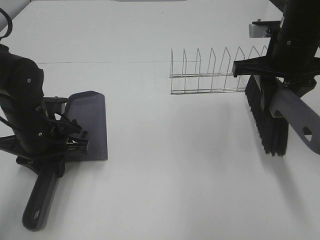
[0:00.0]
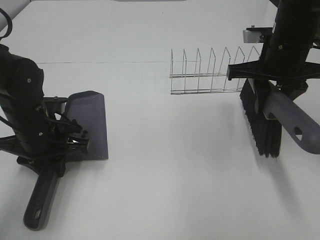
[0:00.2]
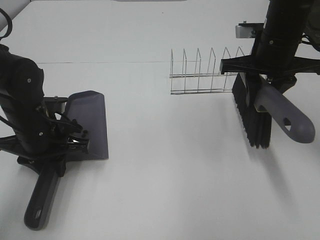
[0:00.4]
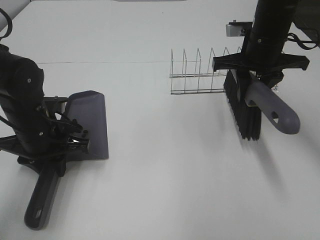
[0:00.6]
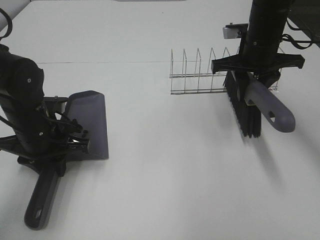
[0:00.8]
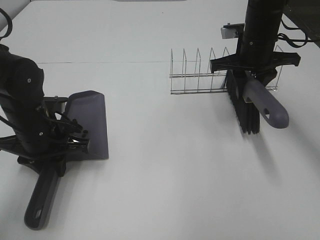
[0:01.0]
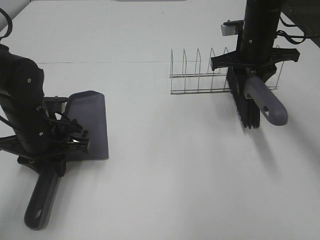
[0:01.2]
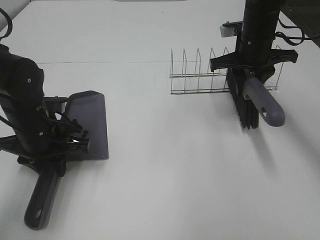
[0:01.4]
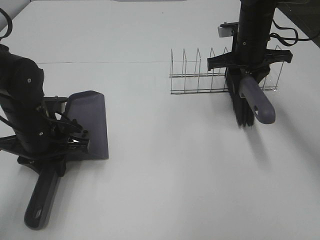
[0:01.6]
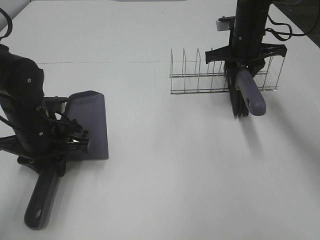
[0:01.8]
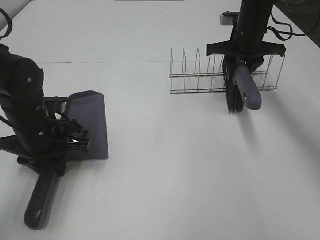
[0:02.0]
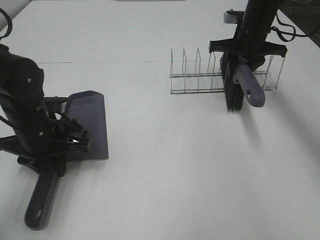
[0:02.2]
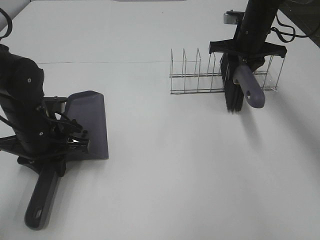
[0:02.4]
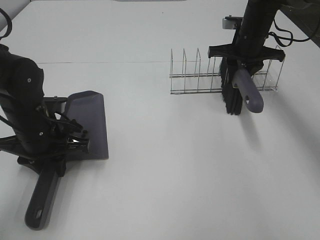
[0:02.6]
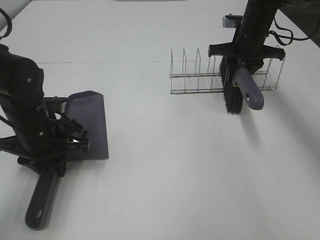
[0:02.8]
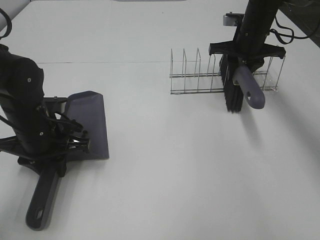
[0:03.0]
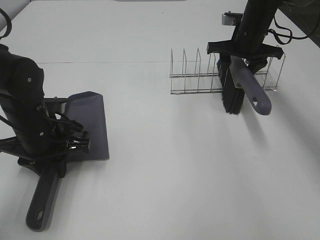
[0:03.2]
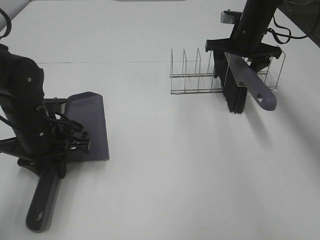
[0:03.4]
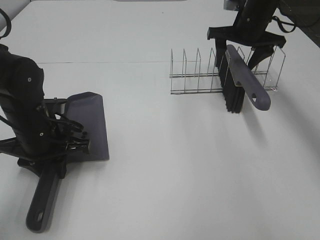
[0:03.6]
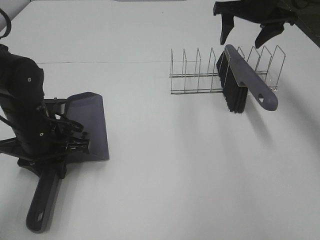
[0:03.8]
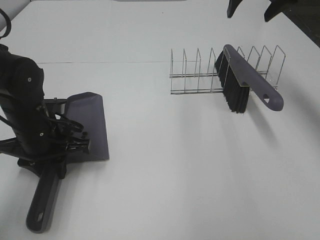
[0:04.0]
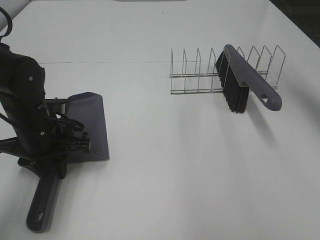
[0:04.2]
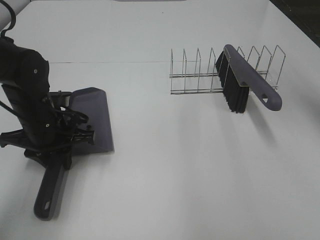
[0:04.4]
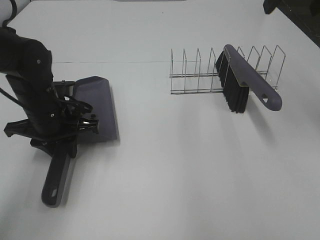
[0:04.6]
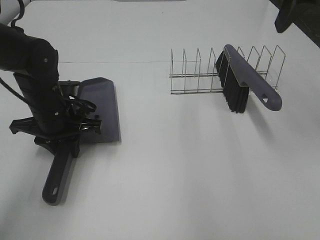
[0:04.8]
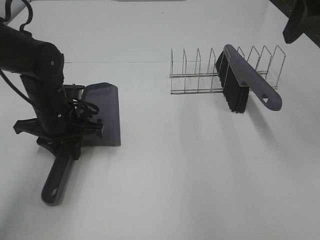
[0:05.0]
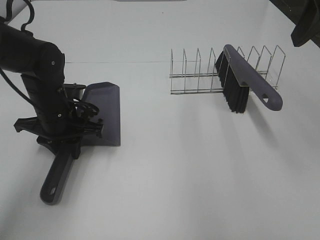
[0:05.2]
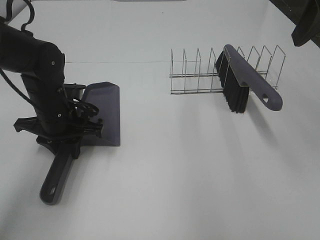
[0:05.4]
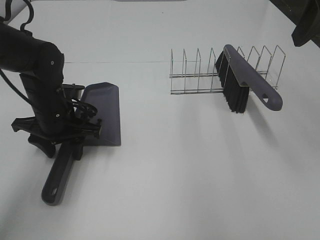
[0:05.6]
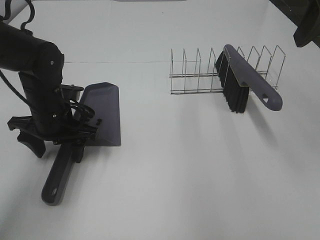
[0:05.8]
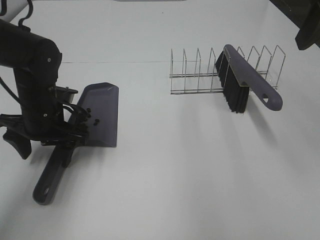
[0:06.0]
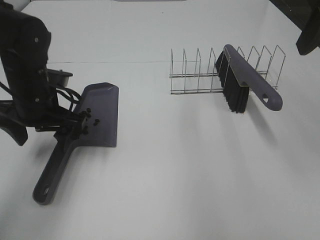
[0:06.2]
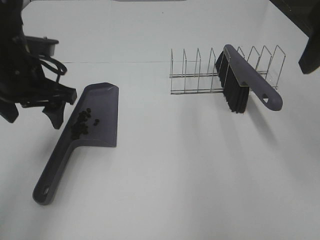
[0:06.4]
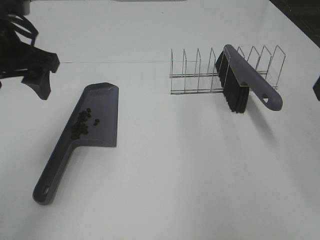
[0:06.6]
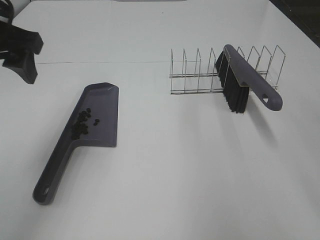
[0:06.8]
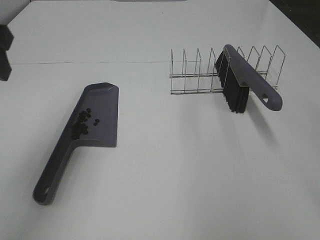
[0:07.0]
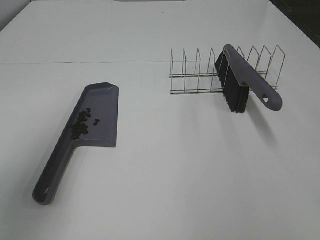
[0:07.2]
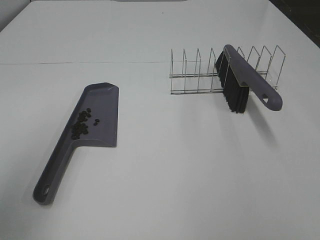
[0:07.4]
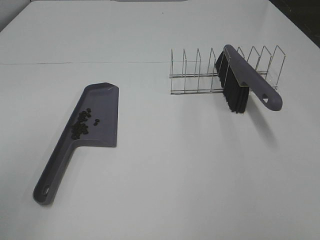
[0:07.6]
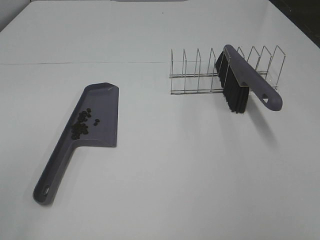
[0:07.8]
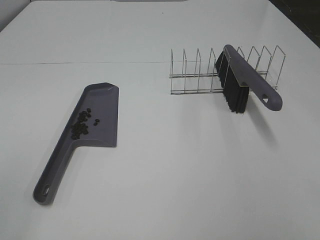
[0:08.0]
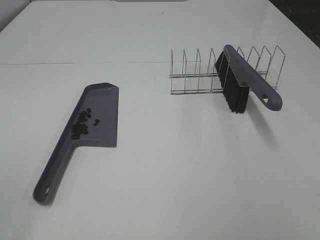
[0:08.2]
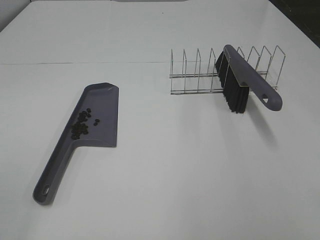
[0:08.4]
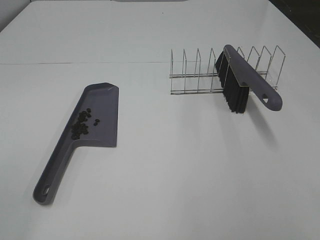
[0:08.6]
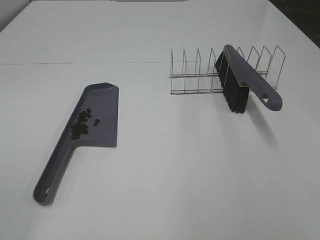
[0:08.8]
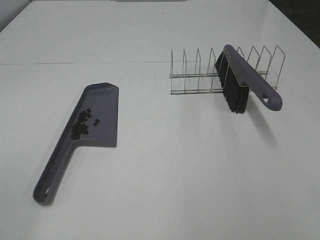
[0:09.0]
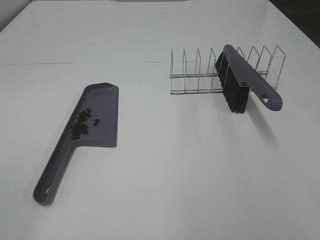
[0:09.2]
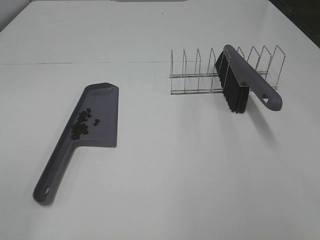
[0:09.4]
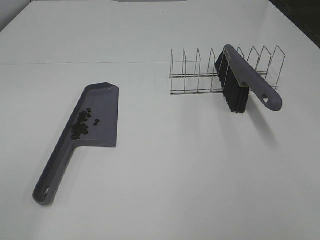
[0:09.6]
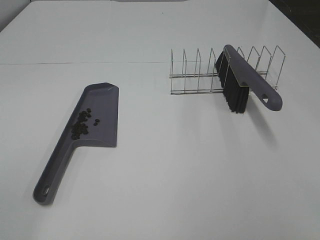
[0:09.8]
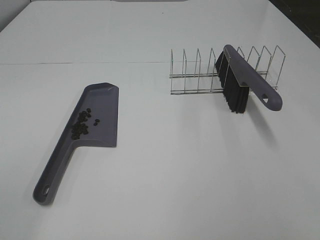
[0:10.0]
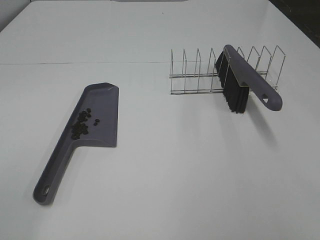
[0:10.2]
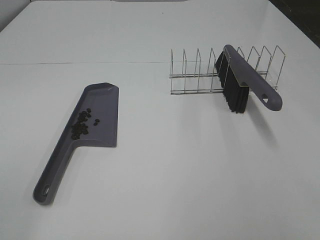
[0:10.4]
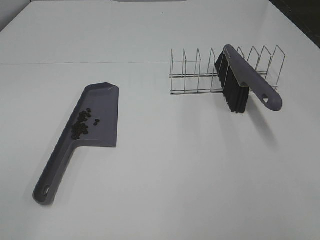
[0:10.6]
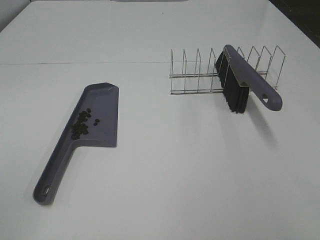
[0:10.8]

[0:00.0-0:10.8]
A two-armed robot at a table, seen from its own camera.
Task of the whole recording: Sweep Coffee Bean.
Step, 0.0 to 3.4 s: Right hand:place the broom on the rack.
Step, 3.6 to 6.0 s: Left hand:place the dustpan on the table.
0.0 to 1.6 s: The right gripper travels forward and downward by about 10 cm.
1.6 to 3.0 s: The right gripper moves some 5 cm.
3.0 to 4.6 s: The right gripper heads upward and backward, covering about 25 cm, and opens.
4.6 to 6.2 s: The right gripper is displaced backward by about 10 cm. Meanwhile the left gripper opens.
6.2 to 7.8 s: The left gripper heads backward, upward and to the left, covering about 35 cm.

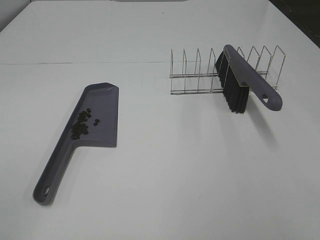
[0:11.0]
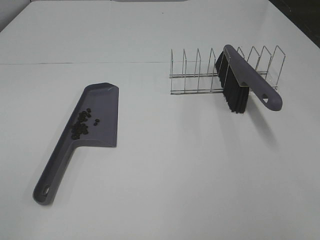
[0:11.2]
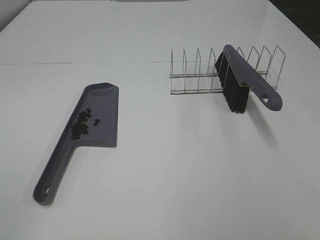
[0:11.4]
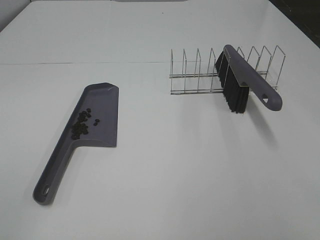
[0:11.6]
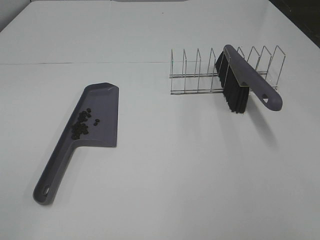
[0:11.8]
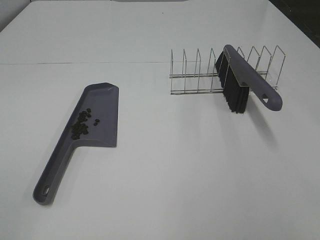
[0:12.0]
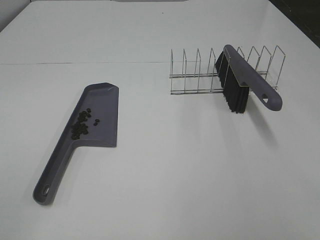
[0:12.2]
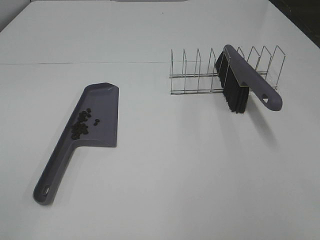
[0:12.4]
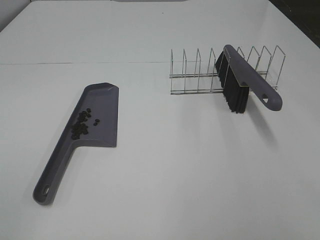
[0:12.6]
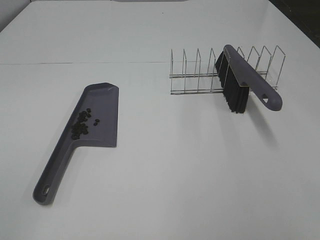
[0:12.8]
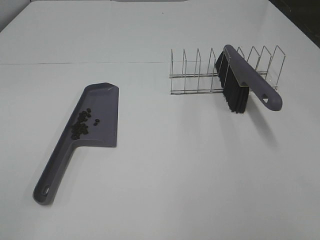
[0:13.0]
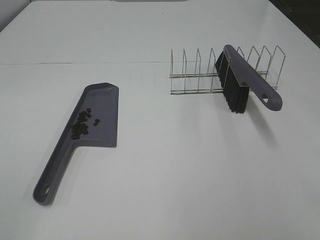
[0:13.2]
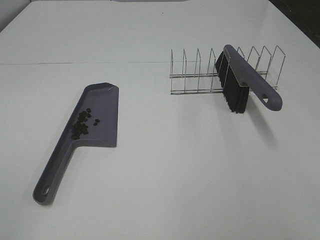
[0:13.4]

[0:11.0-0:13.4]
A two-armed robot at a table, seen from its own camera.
Task of the whole recording: Sweep Coffee Bean.
11.0 to 13.4 s: Neither gripper changes place.

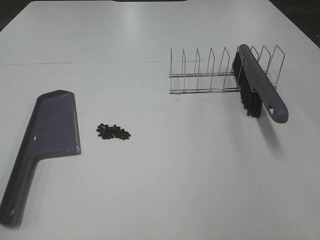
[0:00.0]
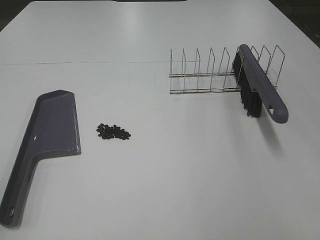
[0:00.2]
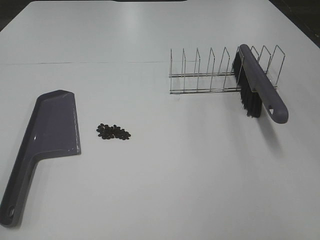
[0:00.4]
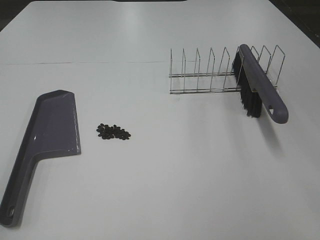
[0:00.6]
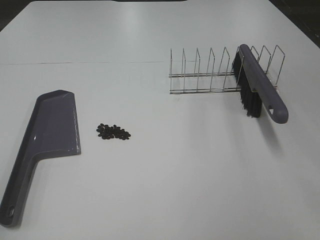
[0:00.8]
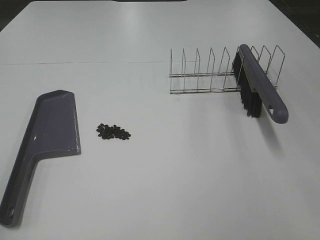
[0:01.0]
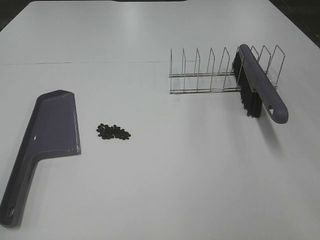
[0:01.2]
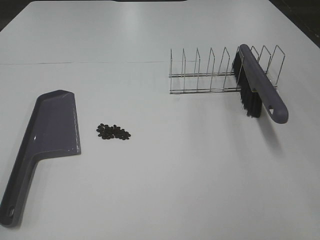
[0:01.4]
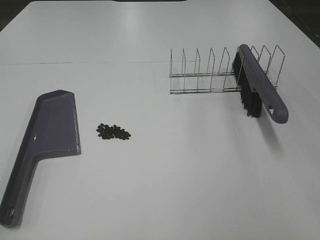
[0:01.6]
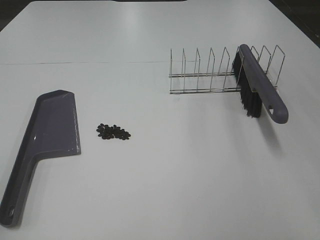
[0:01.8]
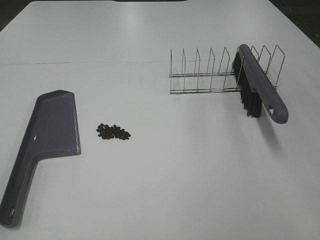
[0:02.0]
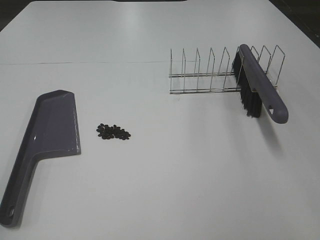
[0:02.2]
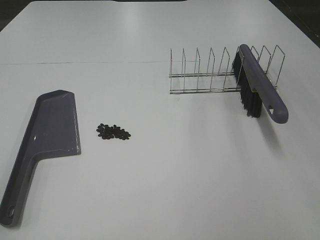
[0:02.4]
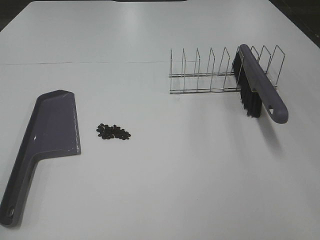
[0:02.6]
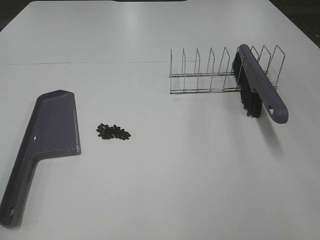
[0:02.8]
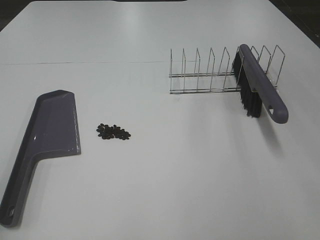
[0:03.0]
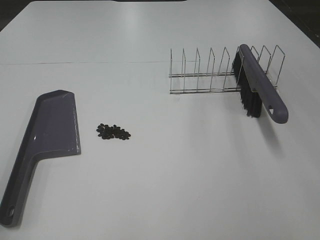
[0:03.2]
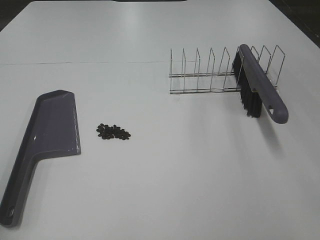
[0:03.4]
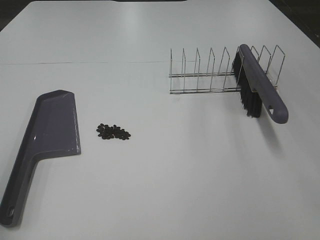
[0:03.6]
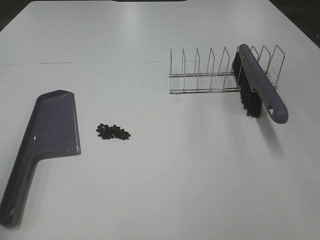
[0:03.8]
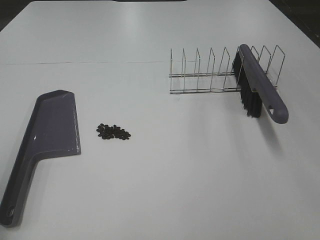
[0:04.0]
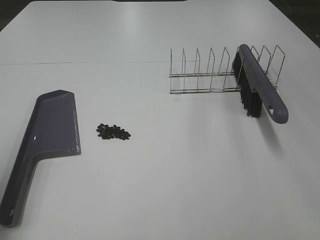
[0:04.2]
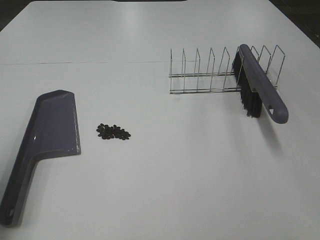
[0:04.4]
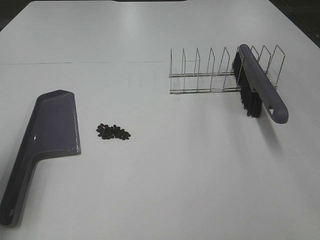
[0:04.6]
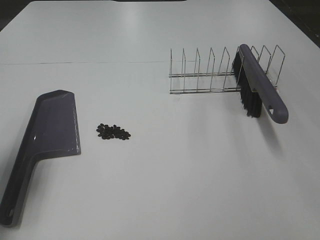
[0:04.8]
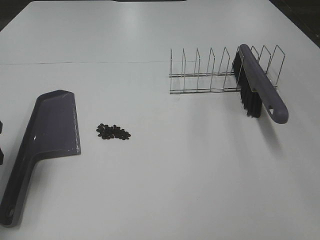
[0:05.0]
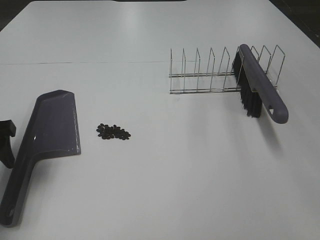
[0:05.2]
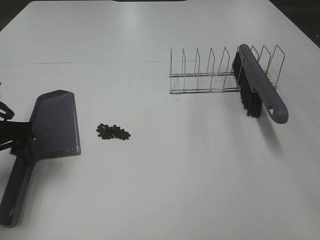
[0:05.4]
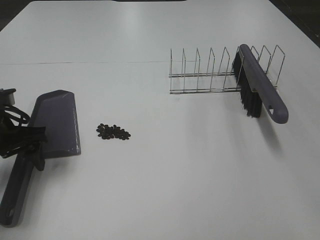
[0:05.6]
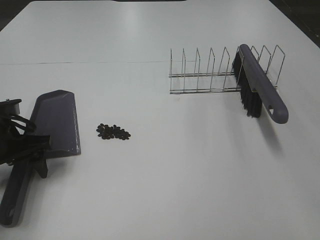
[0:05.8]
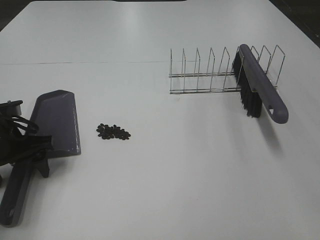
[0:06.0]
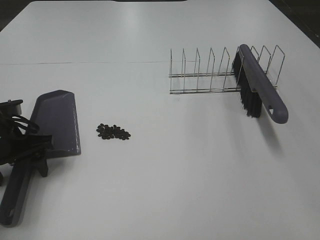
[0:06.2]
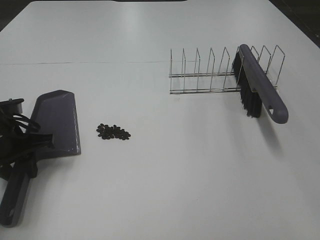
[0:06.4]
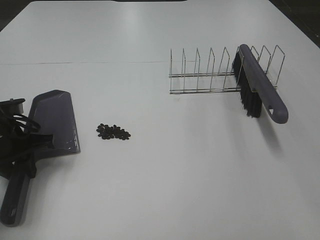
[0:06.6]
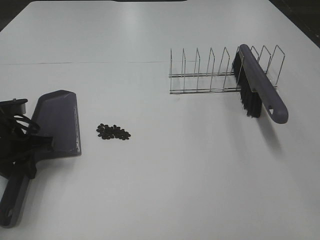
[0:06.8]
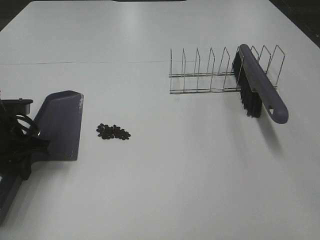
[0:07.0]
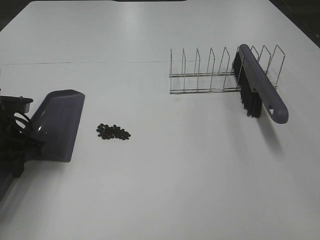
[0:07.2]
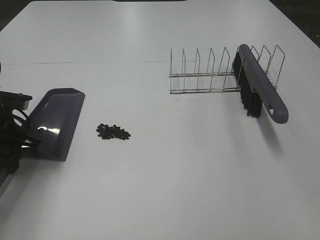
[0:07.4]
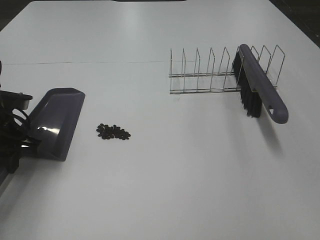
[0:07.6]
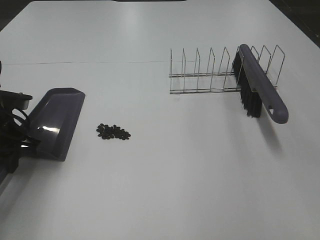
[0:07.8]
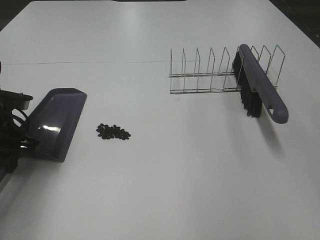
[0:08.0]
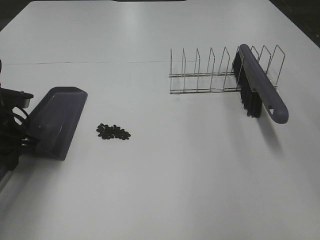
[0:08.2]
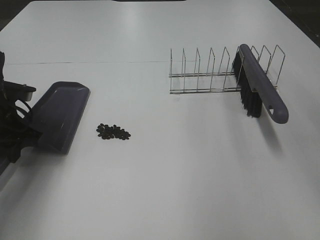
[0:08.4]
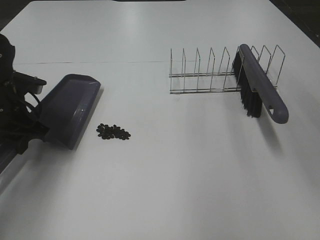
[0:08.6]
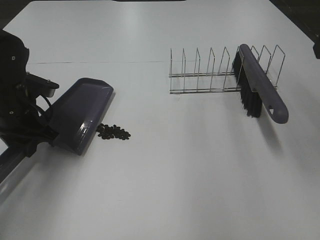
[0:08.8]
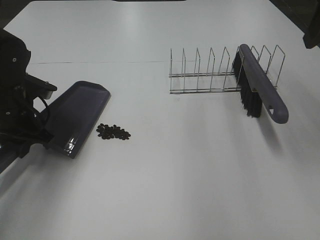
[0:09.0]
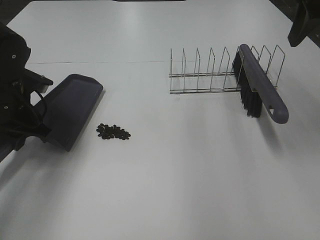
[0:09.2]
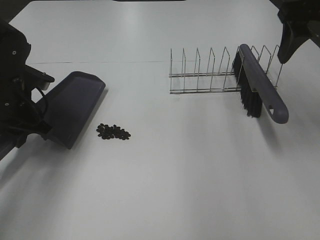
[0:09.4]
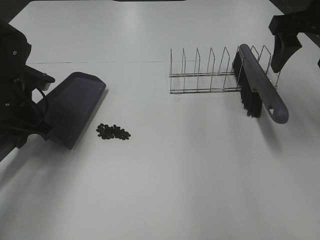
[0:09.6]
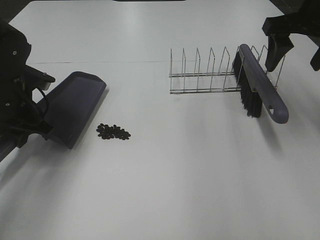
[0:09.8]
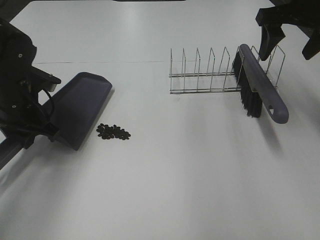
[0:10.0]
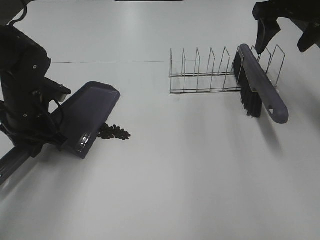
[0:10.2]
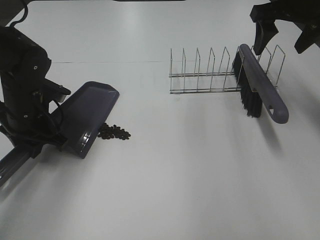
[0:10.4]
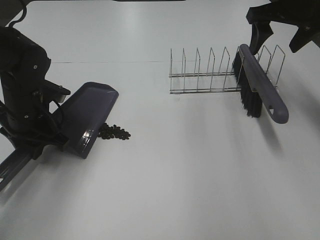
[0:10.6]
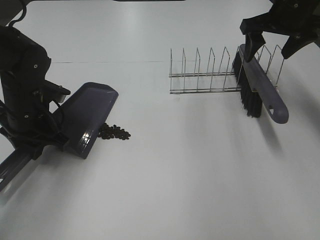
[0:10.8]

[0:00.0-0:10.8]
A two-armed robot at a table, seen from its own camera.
Task of the whole recording: Sweep Coffee Bean.
Step, 0.0 to 6.6 s: Left hand: grab the dustpan.
Step, 6.8 to 10.6 s: Left hand: move the dustpan to the left side of the coffee beans.
0.0 to 1.6 s: Both grippers stay about where they are.
3.0 to 4.6 s: The left gripper goes roughly 15 cm forward.
4.6 to 6.2 s: The left gripper moves downward and forward, some 15 cm.
6.2 to 7.8 s: The left gripper closes.
7.8 to 9.2 s: The left gripper moves about 5 cm; the right gripper heads forward, covering some 25 cm.
9.2 to 10.8 s: The right gripper travels forward and downward by approximately 15 cm.
